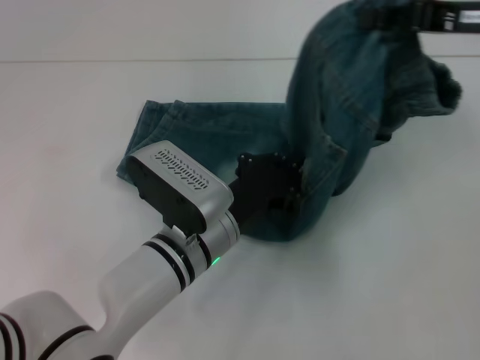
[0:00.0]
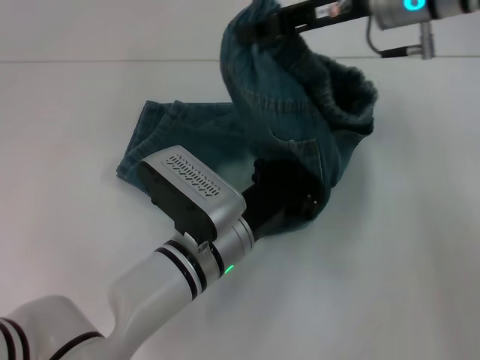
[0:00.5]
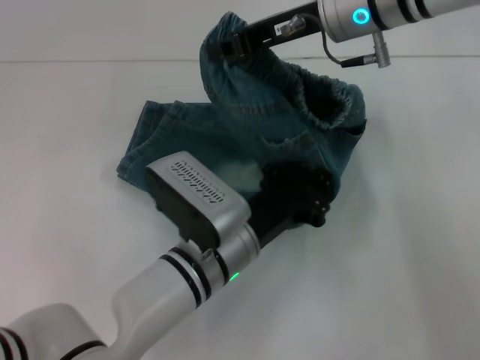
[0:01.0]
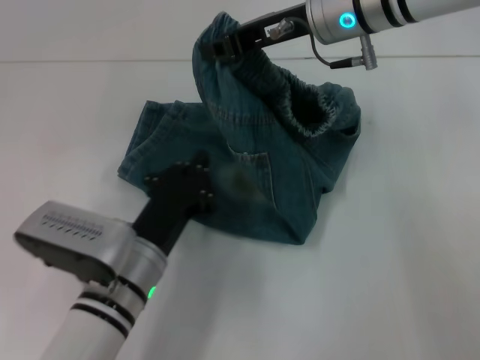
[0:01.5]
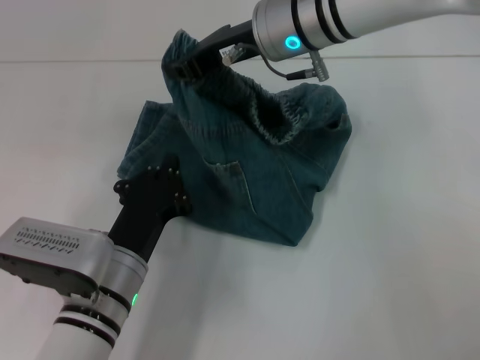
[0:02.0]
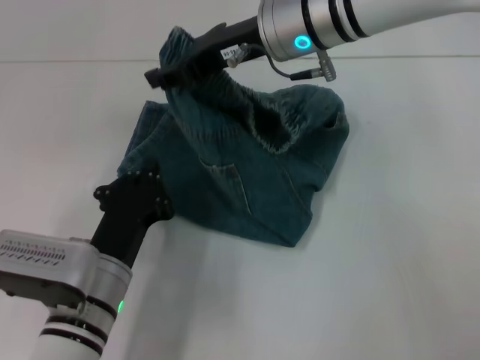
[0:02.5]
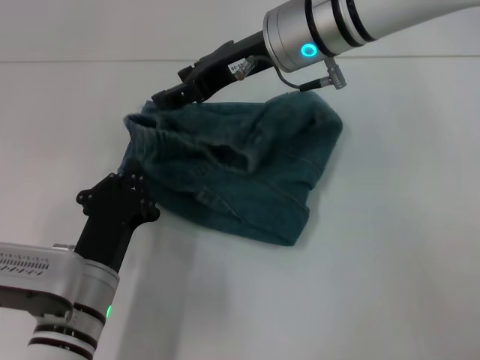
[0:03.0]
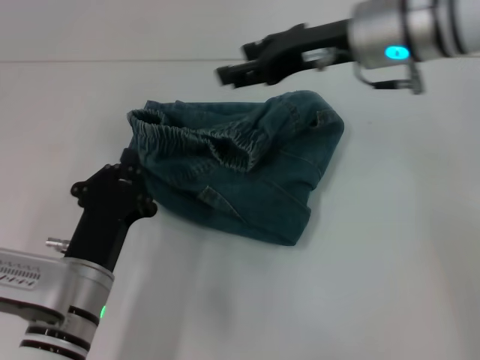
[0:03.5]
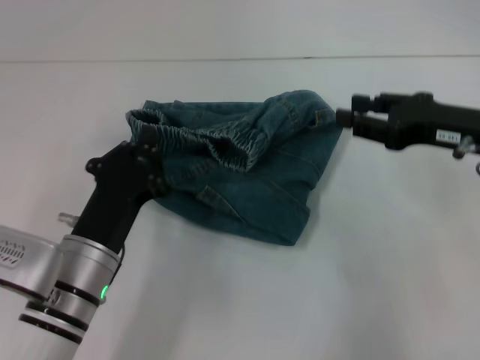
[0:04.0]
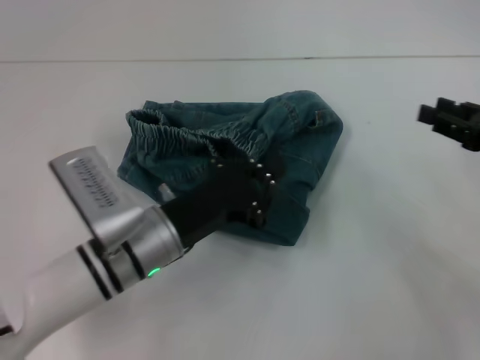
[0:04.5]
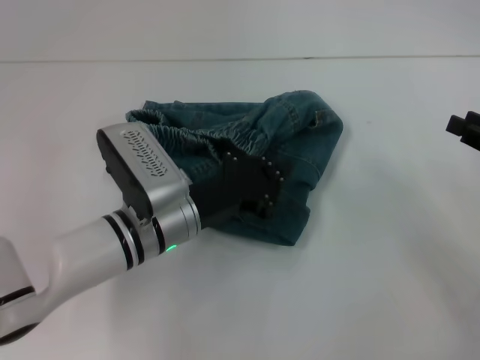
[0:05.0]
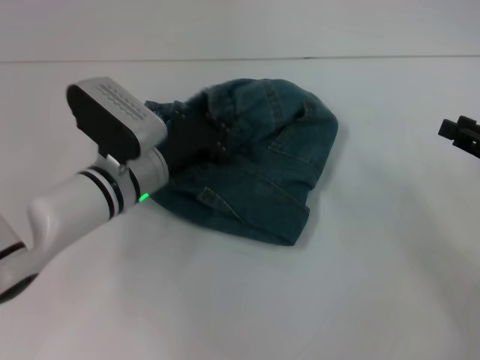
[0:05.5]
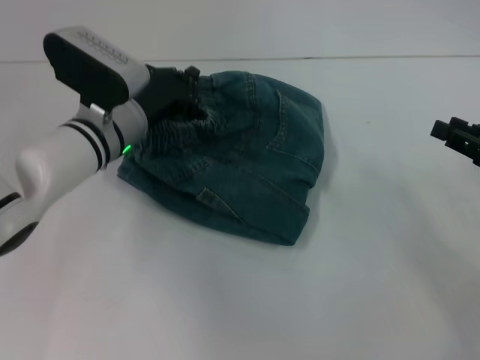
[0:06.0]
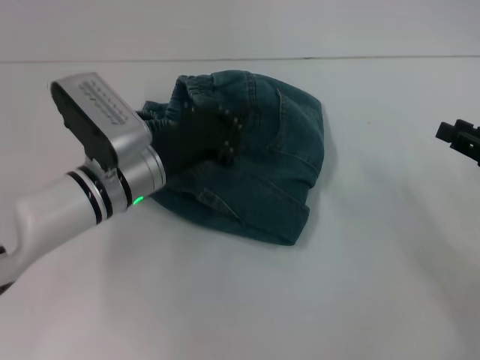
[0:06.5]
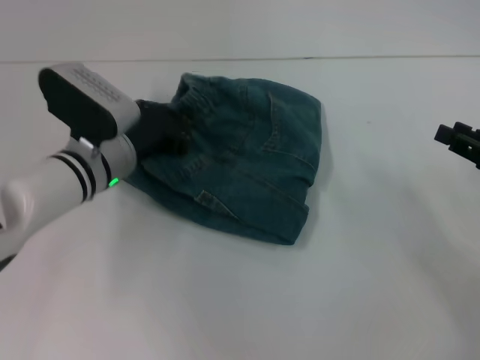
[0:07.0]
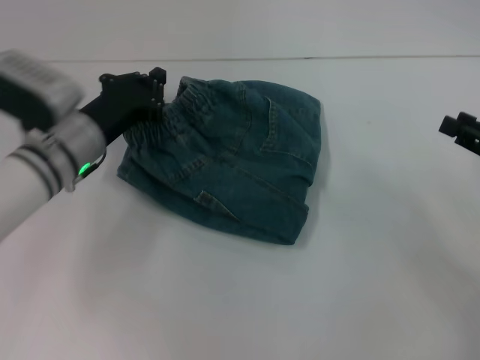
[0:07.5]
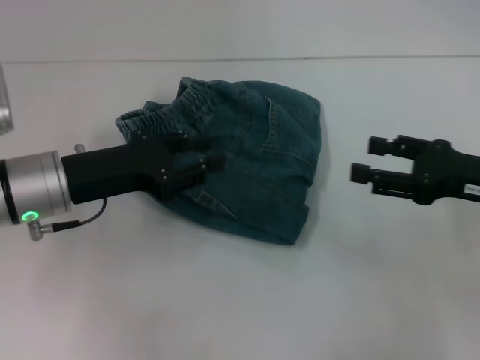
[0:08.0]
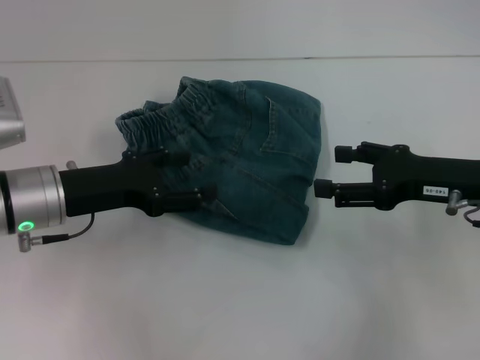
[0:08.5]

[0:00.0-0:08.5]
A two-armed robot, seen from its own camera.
Step, 0:01.5 to 0:03.0: Fold to the left with your right hand.
Step, 0:03.5 to 0:07.5: Adjust the pants with your left hand.
0:00.0 to 0:02.0: The left gripper shifts about 10 cm to the left and backward. The right gripper travels to the left by some 20 cm.
0:02.0 to 0:04.0: The right gripper heads to the right and backward, covering approximately 25 cm, and opens up.
0:04.0 to 0:06.5: The left gripper heads forward, covering approximately 10 cm. The right gripper goes approximately 10 cm to the right.
0:06.5 to 0:08.5: Both grippers move to the left, some 10 cm. The left gripper opens up. Meanwhile the right gripper opens up.

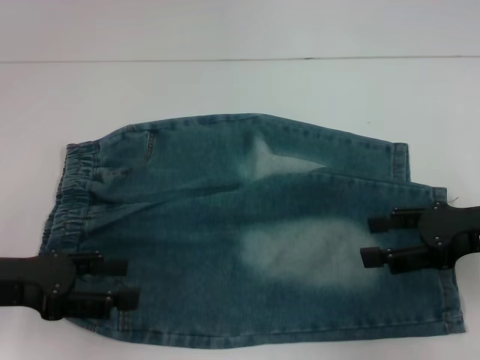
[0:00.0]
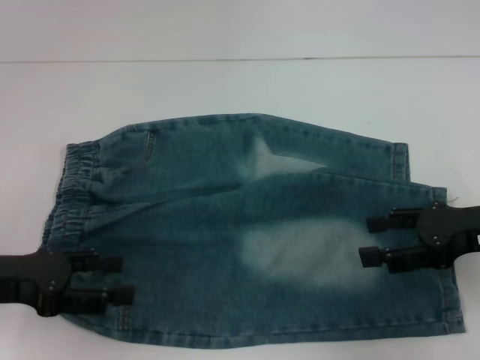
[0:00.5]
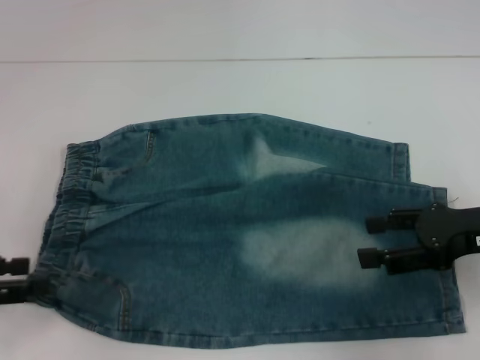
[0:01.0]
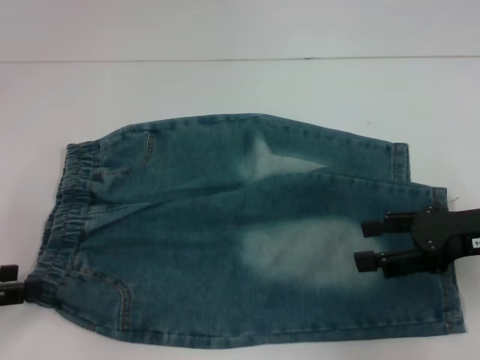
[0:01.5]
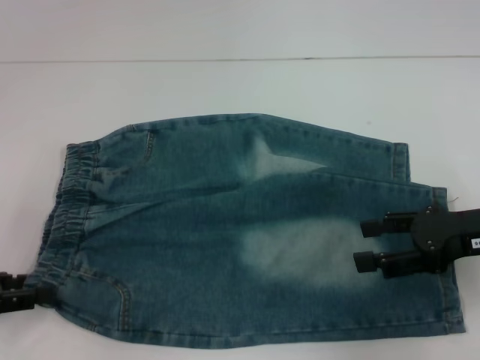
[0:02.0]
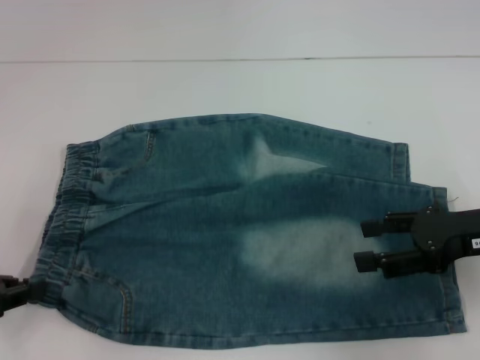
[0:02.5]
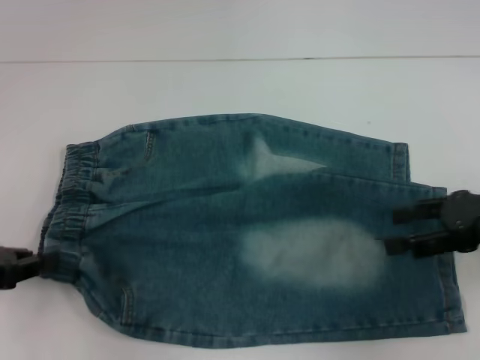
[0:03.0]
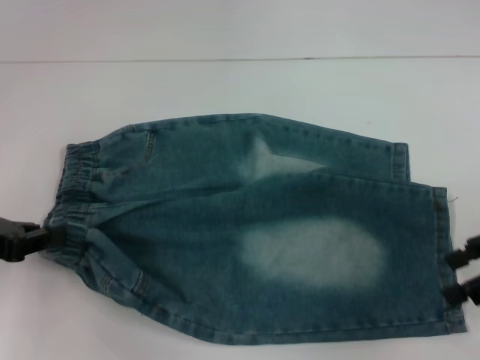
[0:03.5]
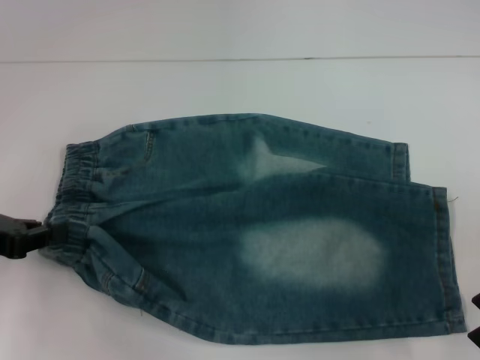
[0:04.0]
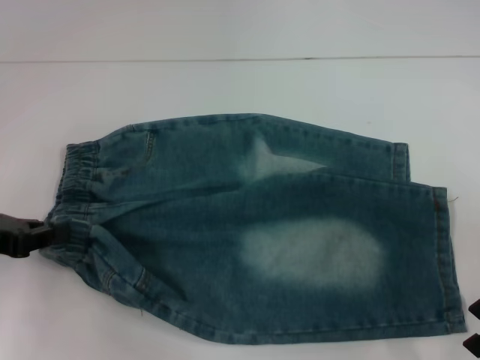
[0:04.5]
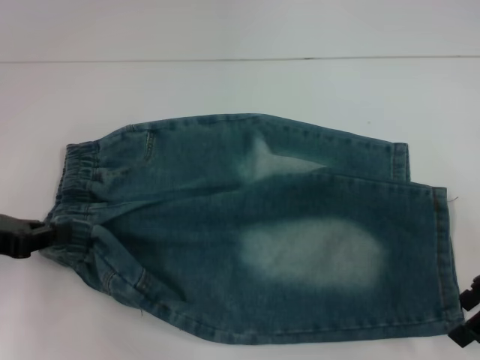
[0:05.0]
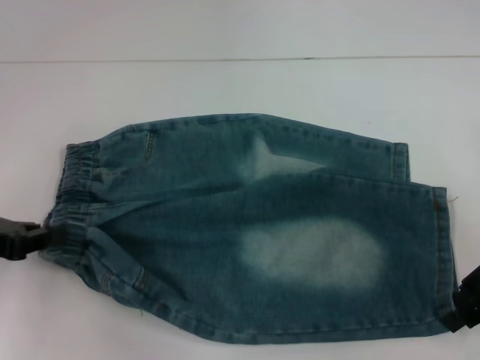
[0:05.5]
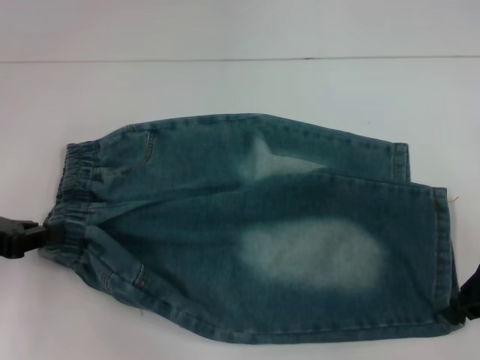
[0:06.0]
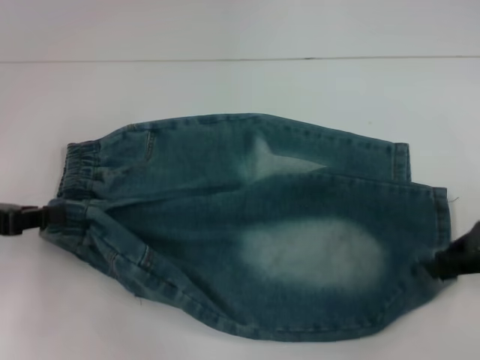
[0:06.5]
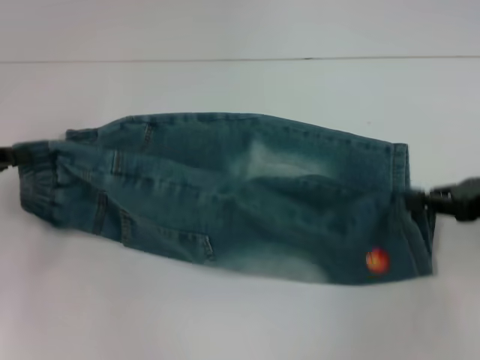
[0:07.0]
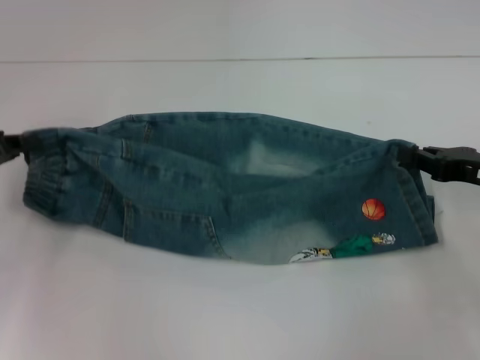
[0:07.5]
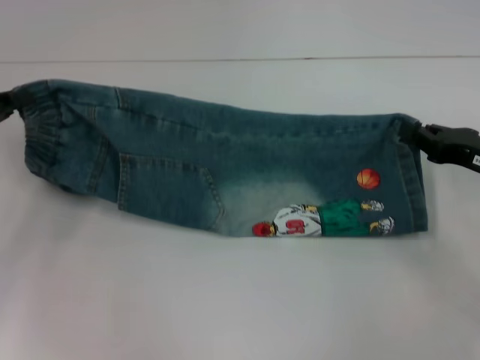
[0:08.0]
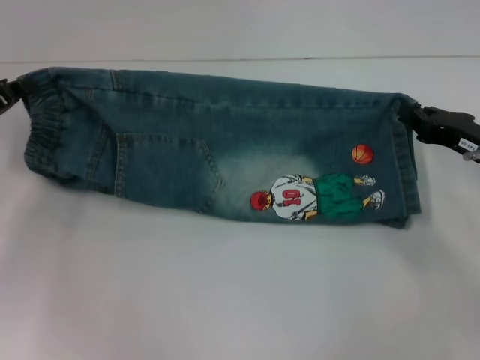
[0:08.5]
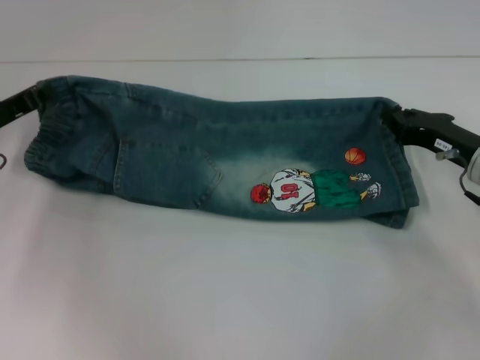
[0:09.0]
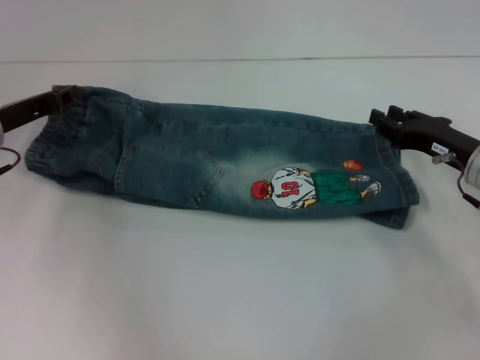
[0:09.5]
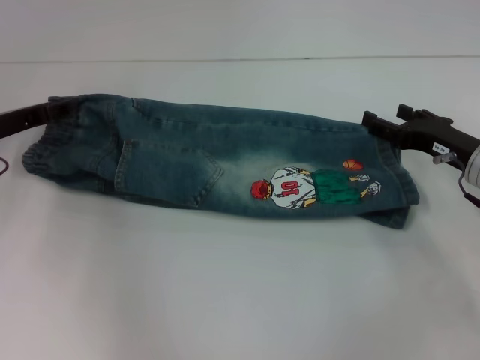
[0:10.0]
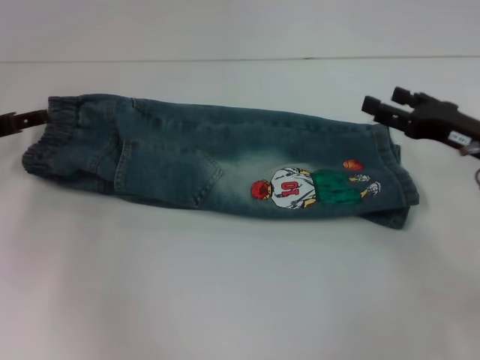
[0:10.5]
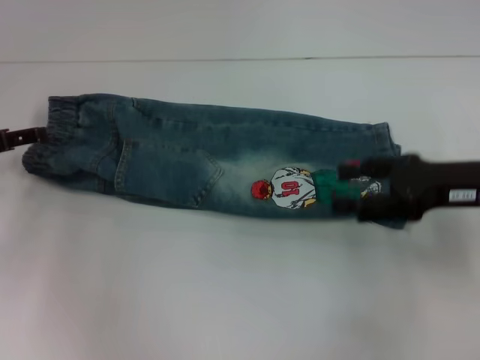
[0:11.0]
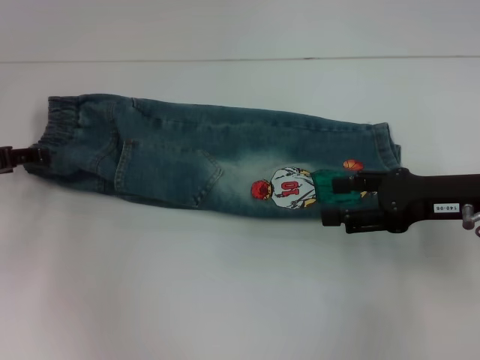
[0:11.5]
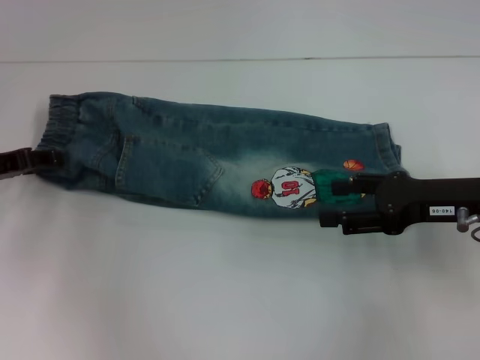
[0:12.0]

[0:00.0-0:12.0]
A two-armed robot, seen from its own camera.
Step, 0:00.0 to 0:02.0: Hold the lower left waistband with your left hand.
Step, 0:03.0 to 0:06.0: Grab the lower right pant leg with your right hand.
Step, 0:06.5 to 0:09.0: Fold upward with your right hand.
Step, 0:09.5 to 0:10.0: Fold upward with your left hand.
0:00.0 to 0:02.0: The left gripper moves to the left, about 5 cm.
0:02.0 to 0:04.0: The right gripper changes place by about 5 cm. Meanwhile the left gripper moves approximately 5 cm, and closes.
0:04.0 to 0:06.0: The right gripper closes its fingers.
0:06.0 to 0:08.0: The left gripper shifts about 5 cm forward, while the right gripper moves downward, roughly 5 cm.
0:08.0 to 0:10.0: The left gripper heads forward, covering approximately 5 cm, and opens its fingers. The right gripper ends up roughly 5 cm from where it was, and opens its fingers.
0:10.0 to 0:12.0: The right gripper shifts some 5 cm upward; the left gripper opens its fingers.

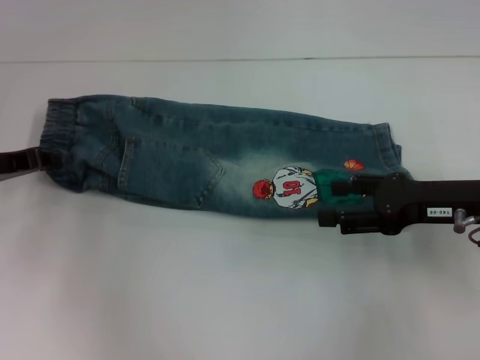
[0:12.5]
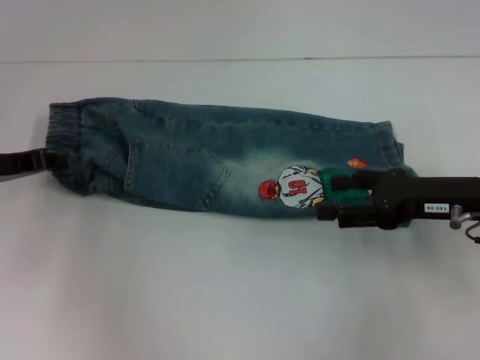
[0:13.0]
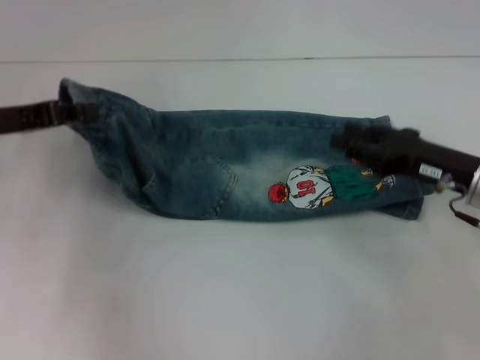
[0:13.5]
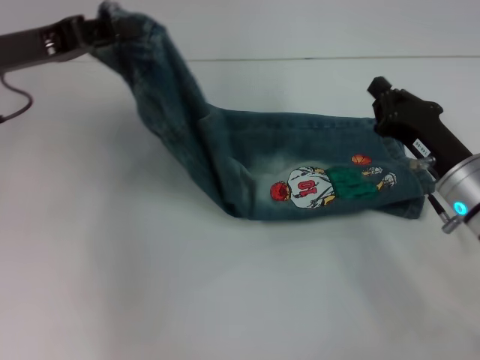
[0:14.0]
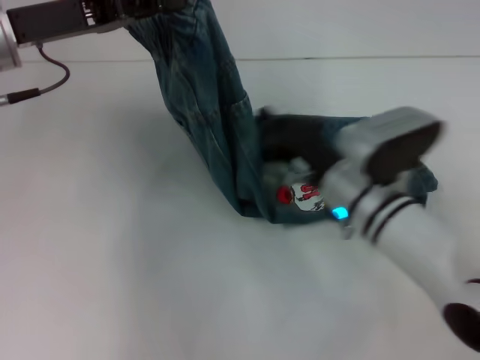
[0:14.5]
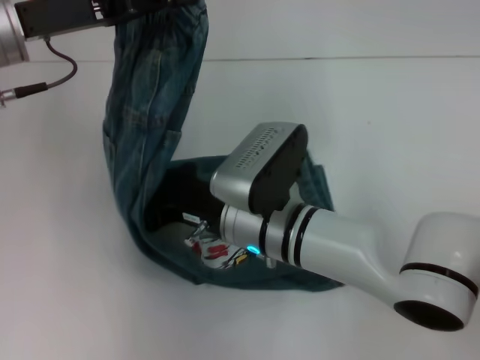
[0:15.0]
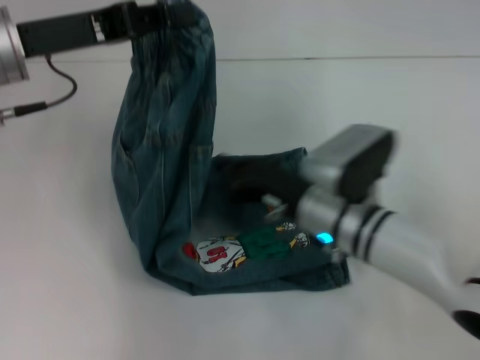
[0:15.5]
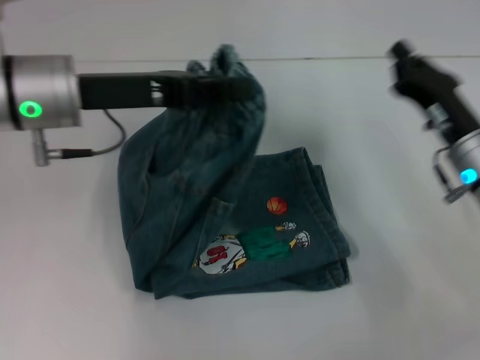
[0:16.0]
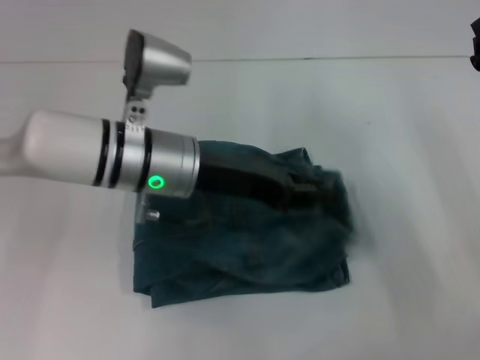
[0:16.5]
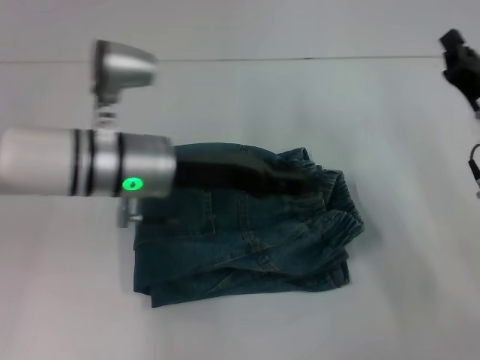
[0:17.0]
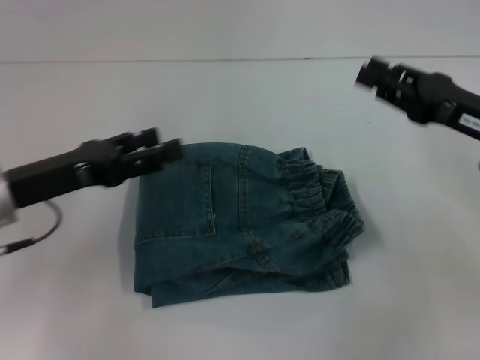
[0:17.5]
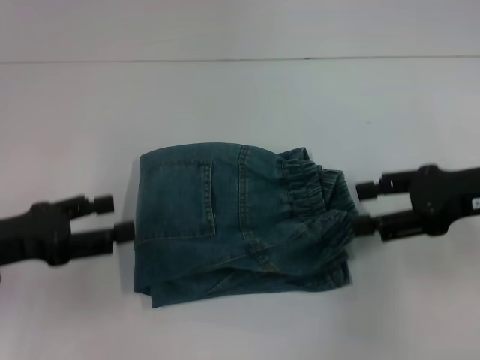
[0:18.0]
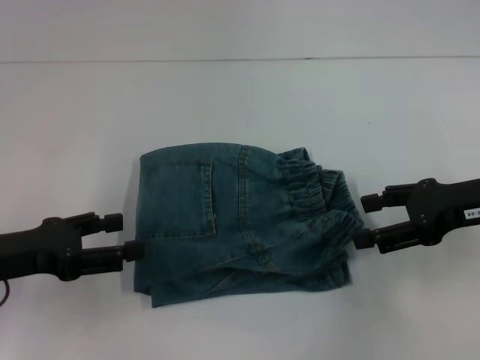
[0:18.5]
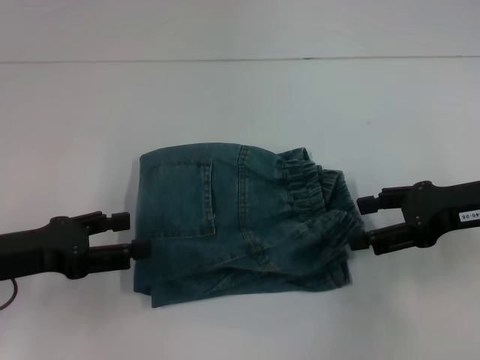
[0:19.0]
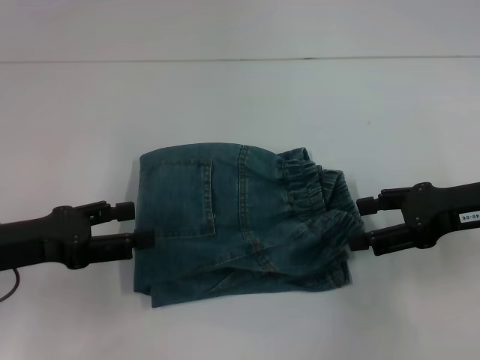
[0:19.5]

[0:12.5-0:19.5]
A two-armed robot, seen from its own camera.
Step, 0:13.5 to 0:15.0: Press the middle of the pants with your right hand.
Step, 0:15.5 to 0:16.5: Fold to the right with your left hand.
0:12.5 to 0:14.5: The right gripper is displaced to the left by approximately 15 cm, and closes its fingers, while the left gripper travels upward and to the right by some 15 cm.
0:14.5 to 0:16.0: The right gripper heads to the right, covering some 10 cm; the left gripper shifts by roughly 5 cm.
0:16.0 to 0:17.5: The right gripper travels upward by roughly 5 cm; the left gripper goes roughly 10 cm downward, to the left and backward, and opens its fingers.
0:17.5 to 0:19.5: The right gripper opens up. The left gripper changes place by approximately 5 cm.
